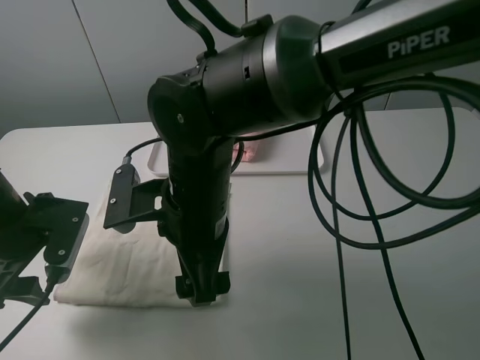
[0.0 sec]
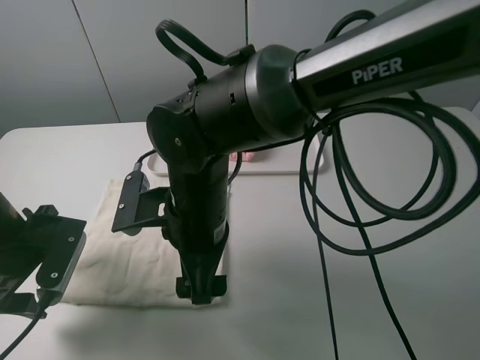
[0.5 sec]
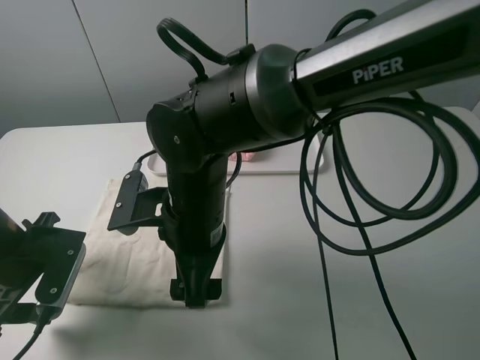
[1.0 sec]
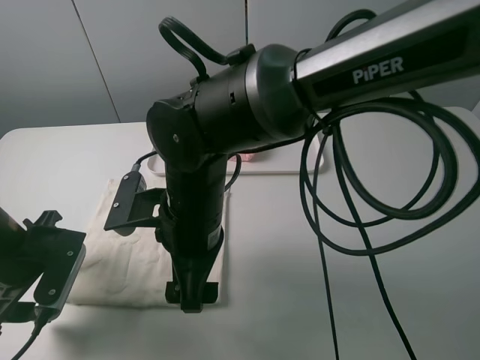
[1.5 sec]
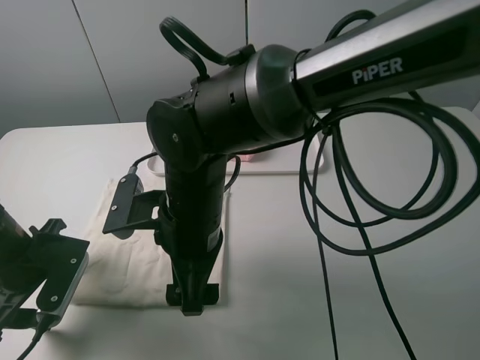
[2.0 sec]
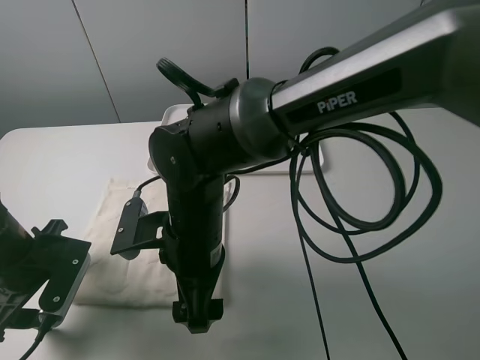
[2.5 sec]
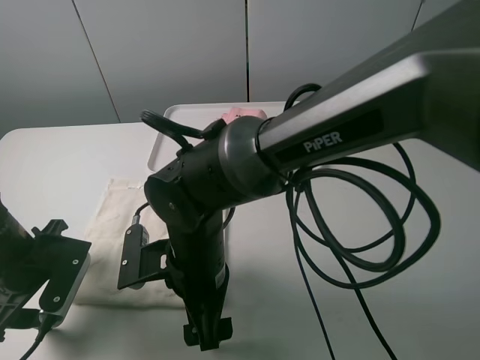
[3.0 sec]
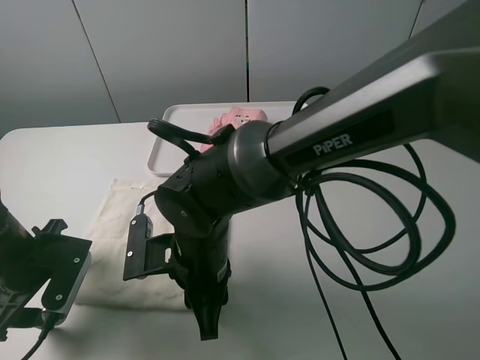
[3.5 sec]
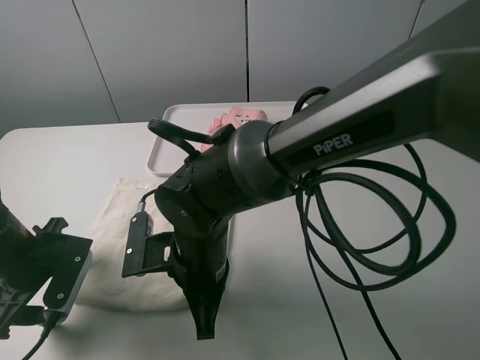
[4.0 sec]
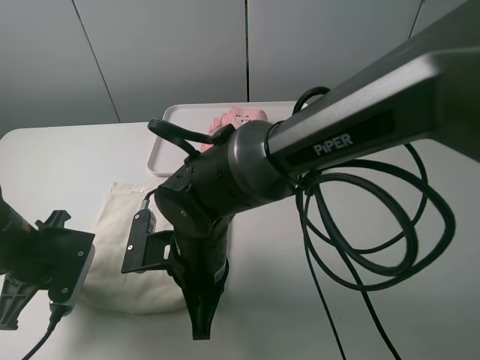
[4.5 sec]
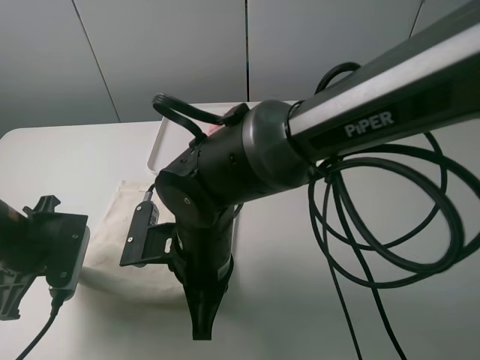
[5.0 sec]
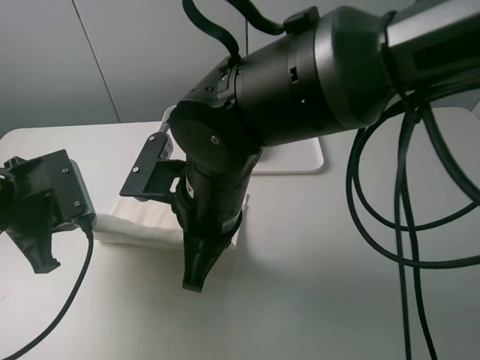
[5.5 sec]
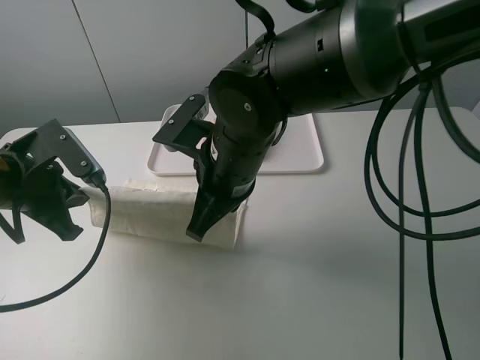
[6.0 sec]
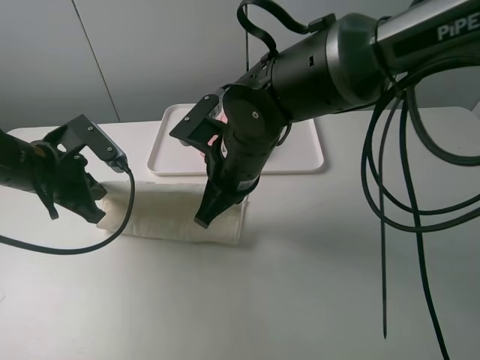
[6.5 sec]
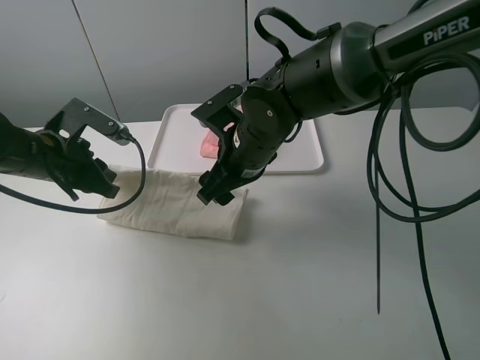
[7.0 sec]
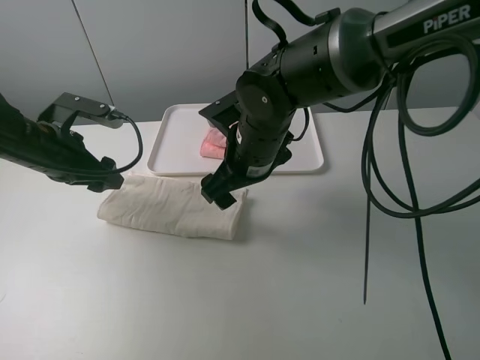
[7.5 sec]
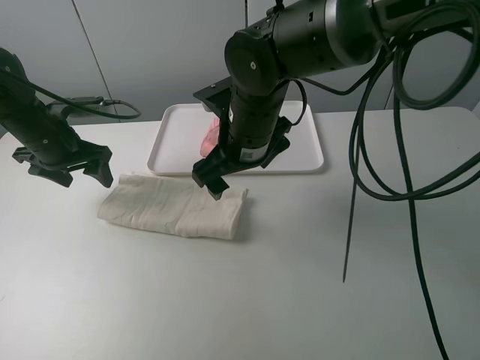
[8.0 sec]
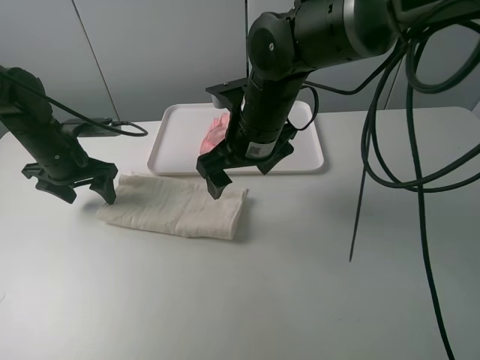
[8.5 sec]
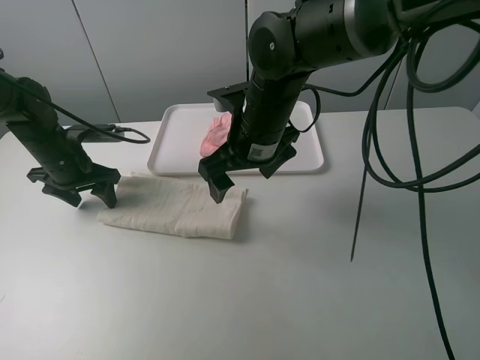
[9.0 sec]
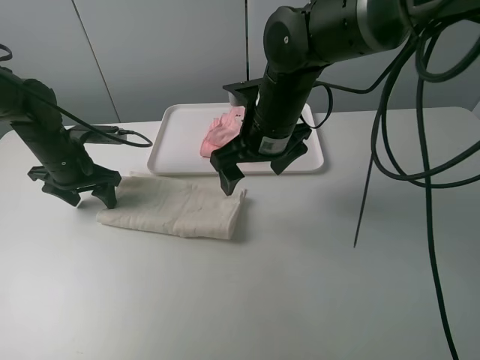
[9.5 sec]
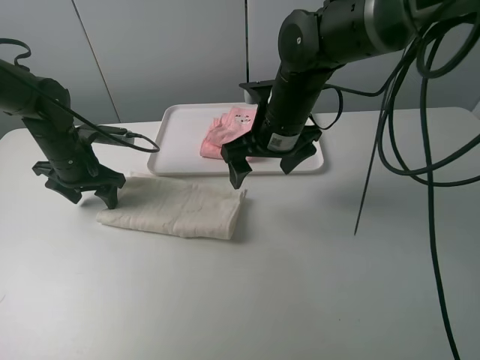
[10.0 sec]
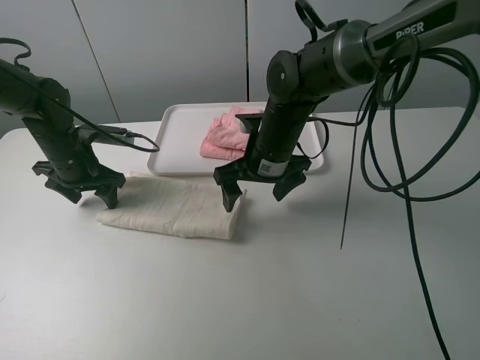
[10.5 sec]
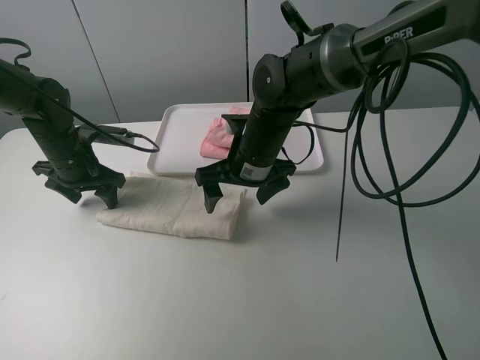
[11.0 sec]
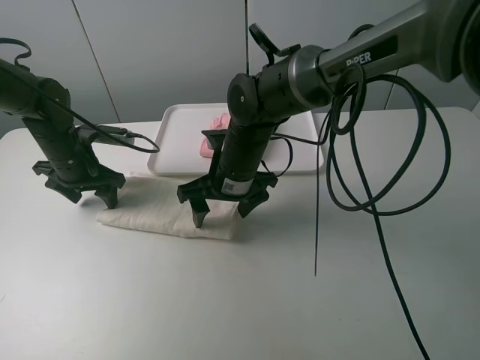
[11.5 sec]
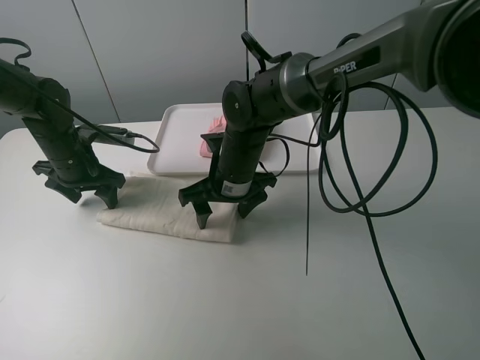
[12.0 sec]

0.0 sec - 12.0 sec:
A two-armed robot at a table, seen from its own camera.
Task of the whole recording: fold one of the towels by two grippers and place it on the tray,then fold another towel by two grippers and place it on the folded towel.
Step, 0.0 sec - 4.5 sec: Grasp the white towel with the left gripper.
Step, 5.0 sec - 7.0 sec: Fold the white towel upwards with the left gripper.
Step, 7.5 sec - 9.0 sec: Press the white towel with the left gripper.
2.0 sec - 4.0 sec: The right gripper shifts about 5 cm downward, and closes.
4.0 sec - 6.0 sec: The right gripper moves upward and forward, about 10 cm. The left gripper is displaced upward by some 5 cm, and closes.
6.0 sec - 8.0 sec: The left gripper is displaced forward by roughly 10 cm, and opens up. Meanwhile the right gripper moves forward, roughly 5 cm, and opens up.
8.0 sec - 10.0 sec: The left gripper ends up roughly 5 cm from where it was. Meanwhile the right gripper shifts by roughly 5 cm.
10.0 sec - 12.0 sec: The right gripper travels downward and to the left by roughly 10 cm.

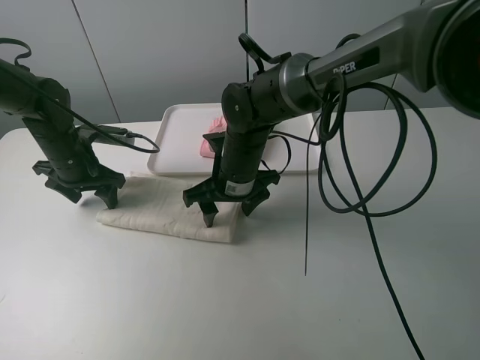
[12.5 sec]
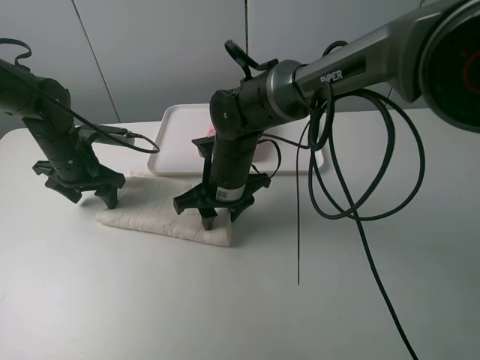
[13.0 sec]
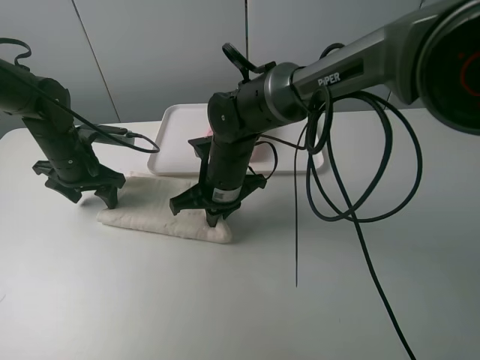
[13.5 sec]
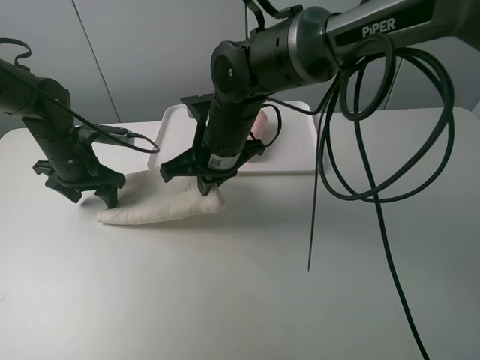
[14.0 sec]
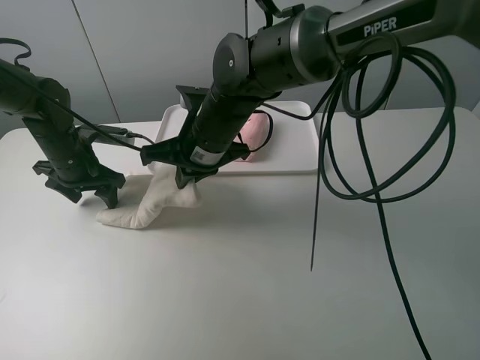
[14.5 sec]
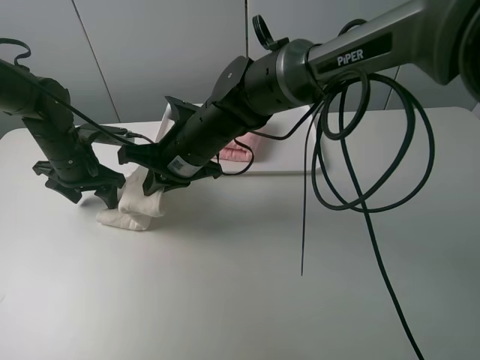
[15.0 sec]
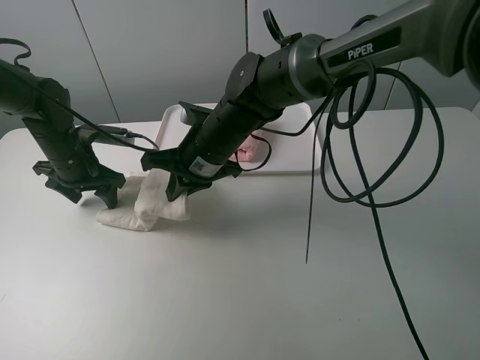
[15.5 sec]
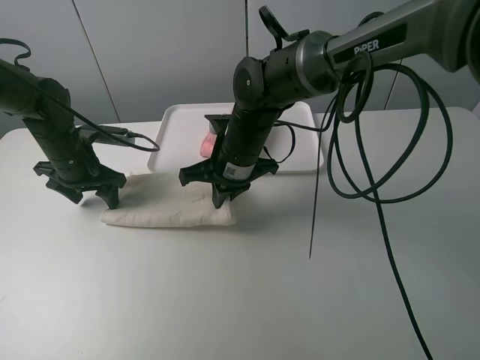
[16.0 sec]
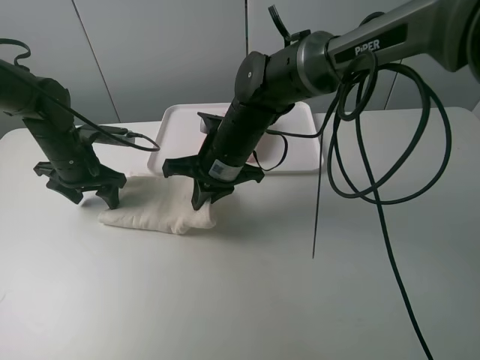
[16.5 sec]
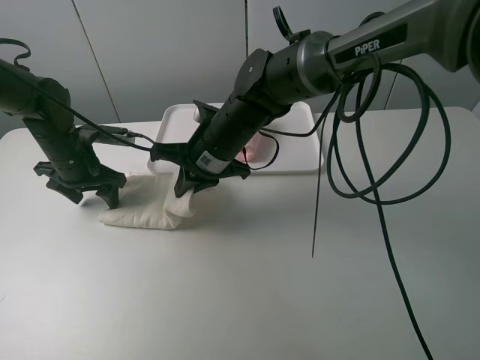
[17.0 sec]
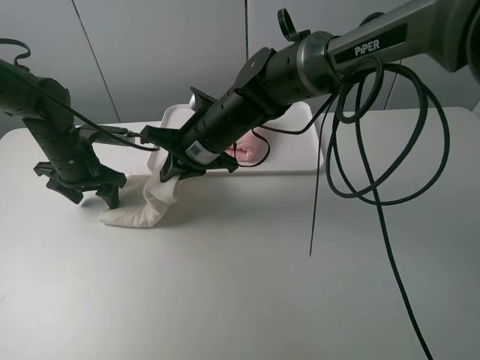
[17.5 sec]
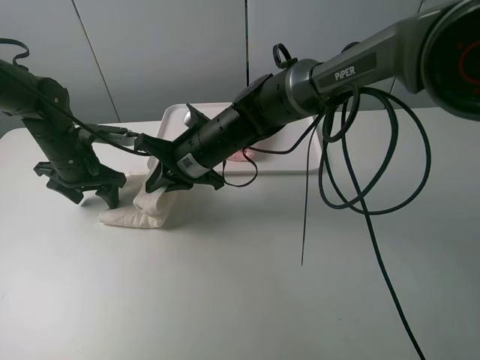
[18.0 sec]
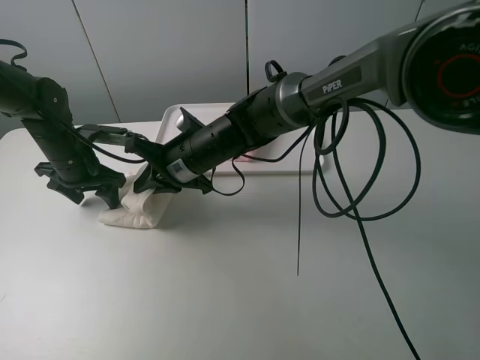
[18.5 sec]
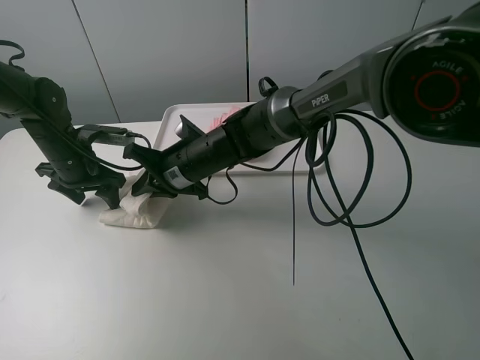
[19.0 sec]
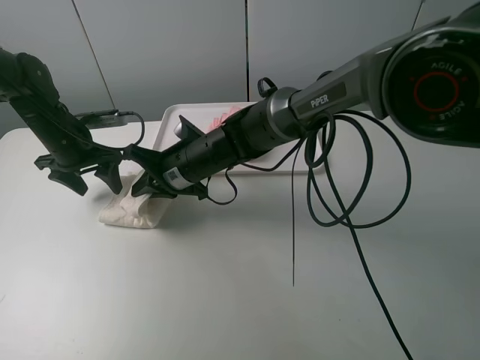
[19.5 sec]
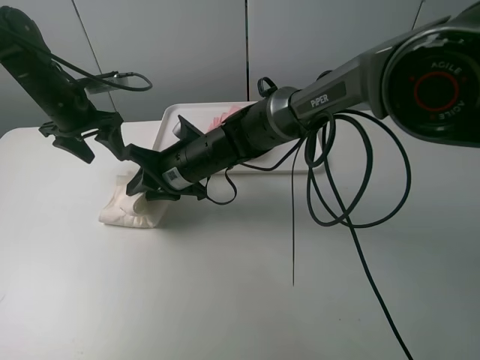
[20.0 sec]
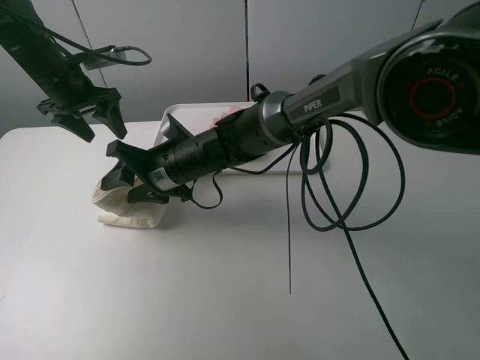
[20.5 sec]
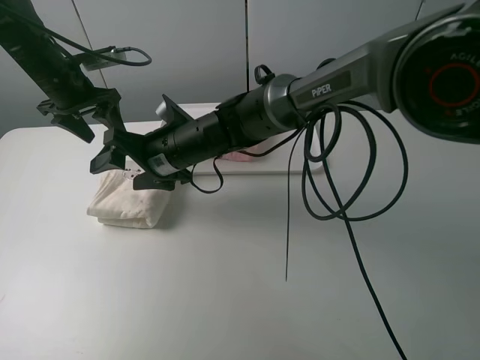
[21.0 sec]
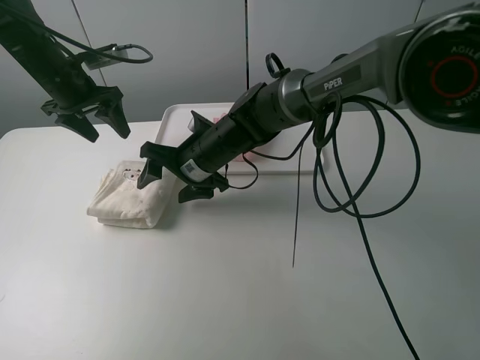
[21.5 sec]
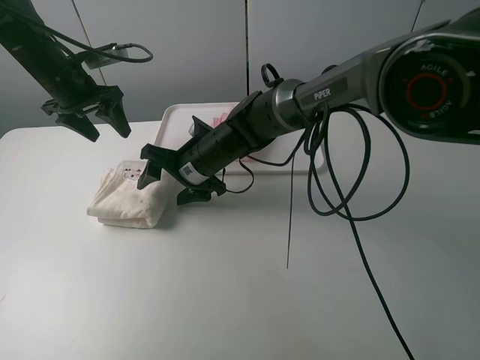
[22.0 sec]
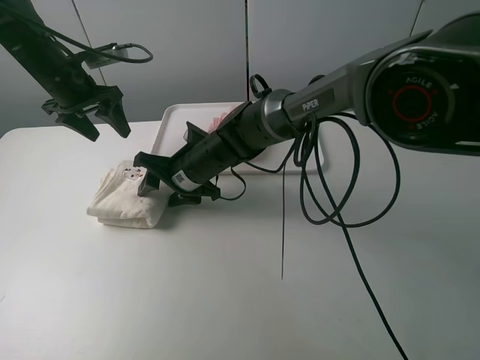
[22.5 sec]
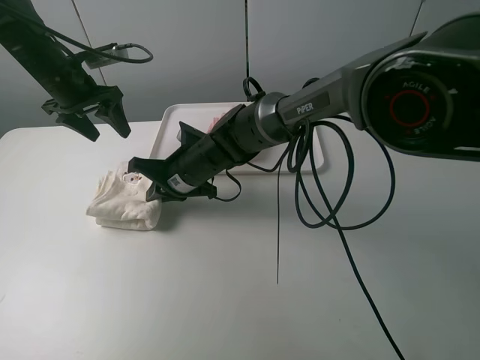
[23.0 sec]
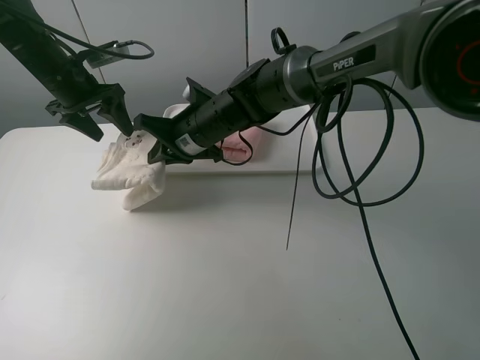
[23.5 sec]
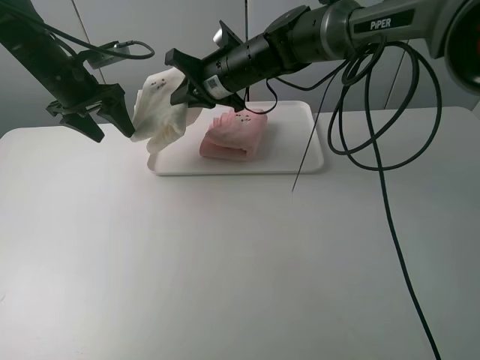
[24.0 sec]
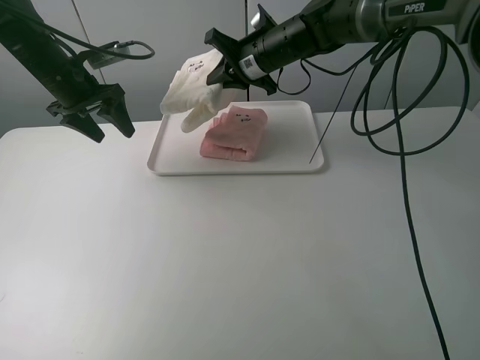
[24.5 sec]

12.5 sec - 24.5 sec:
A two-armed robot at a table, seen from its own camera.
Task of the whole recording: fold one of the towels by two grippers and place it on the tray,then fold another towel by two grippers and place it on the folded towel.
Step, 13.5 sec - 20.5 sec: Fold the white towel from right to left with right gripper.
Step, 21.0 sec - 23.0 sec: Grasp the white towel with the right gripper.
12.5 sec - 14.5 sec: The right gripper travels upward by some 5 cm, and closes up.
14.5 sec - 16.5 sec: The grippers stay close to where they were, moving slightly.
16.5 sec - 18.5 sec: The right gripper moves some 5 cm.
18.5 sec - 20.5 sec: The left gripper shifts some 10 cm upward and forward. The right gripper opens.
20.5 sec - 22.5 sec: The grippers make only small movements.
22.5 sec - 24.5 sec: The right gripper travels upward, forward and to the right by approximately 20 cm, and closes.

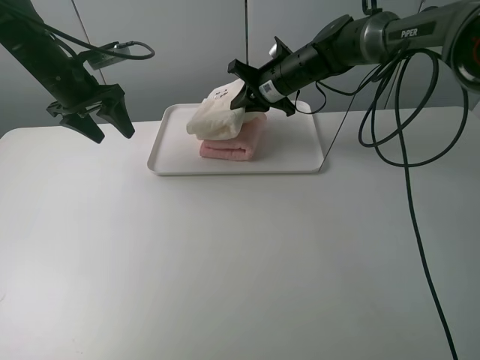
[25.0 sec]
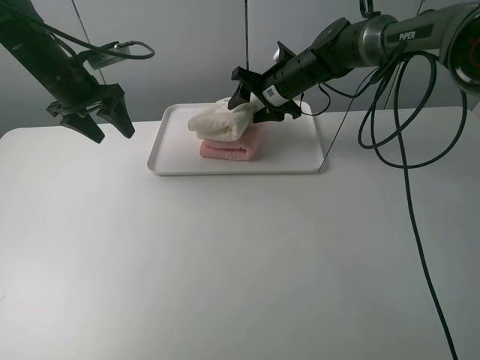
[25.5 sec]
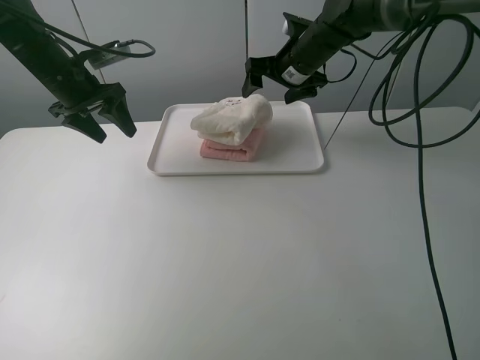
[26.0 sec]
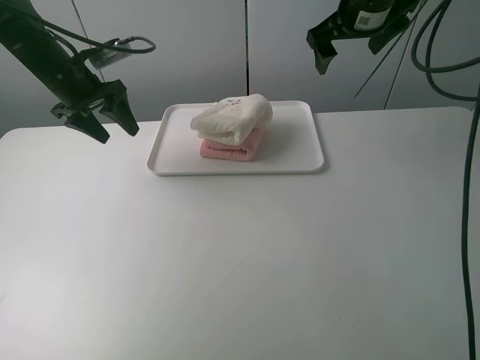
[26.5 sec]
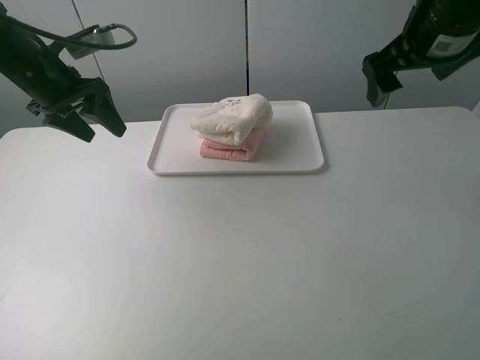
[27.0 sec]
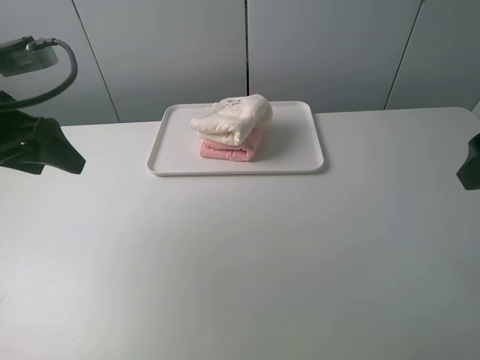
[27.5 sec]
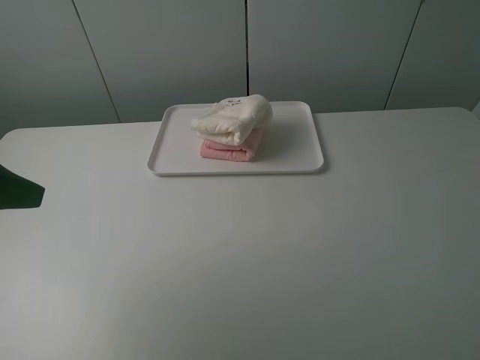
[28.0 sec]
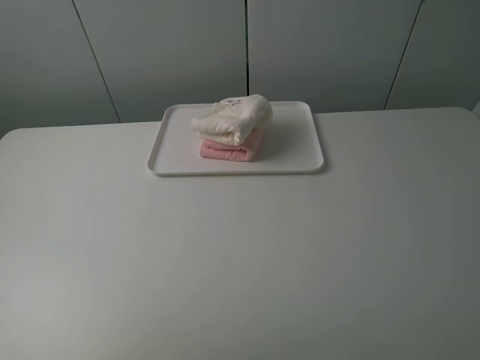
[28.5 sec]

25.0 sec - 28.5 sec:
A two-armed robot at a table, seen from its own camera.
Task of the whole recording: fold one of the towels by two grippers and place it on the tray,then fold another towel by two grippers and place it on the folded towel.
25.0 sec - 27.0 sec: The left gripper heads backward, covering some 5 cm. Meanwhile the right gripper travels backward, upward and to the right by some 25 cm, and opens its fingers.
27.0 sec - 28.5 sec: Both grippers move backward, roughly 30 cm.
